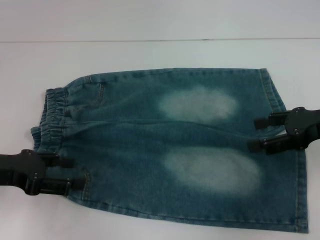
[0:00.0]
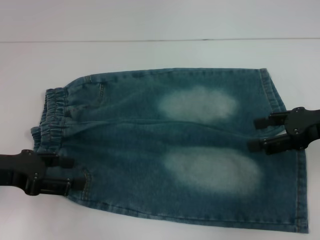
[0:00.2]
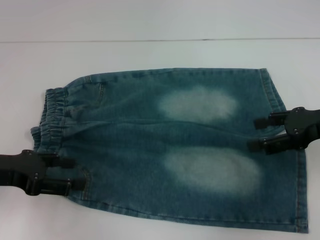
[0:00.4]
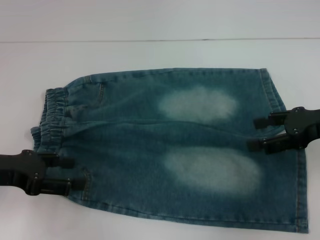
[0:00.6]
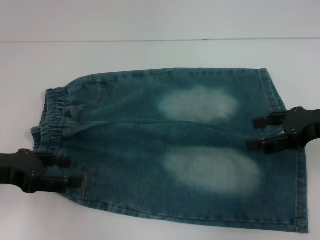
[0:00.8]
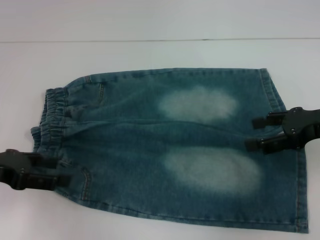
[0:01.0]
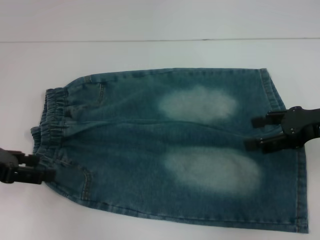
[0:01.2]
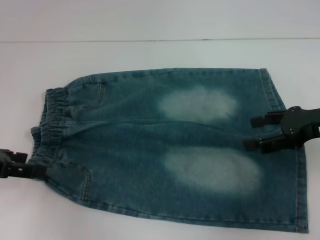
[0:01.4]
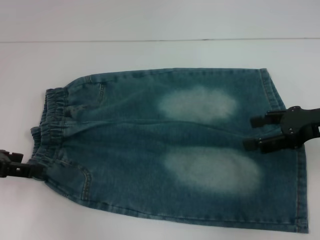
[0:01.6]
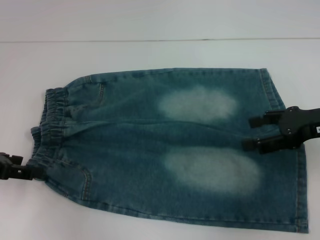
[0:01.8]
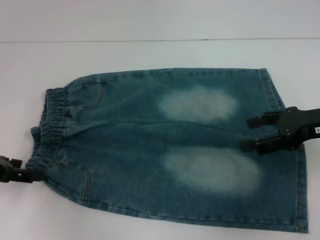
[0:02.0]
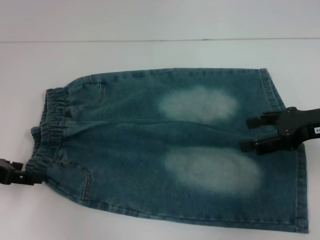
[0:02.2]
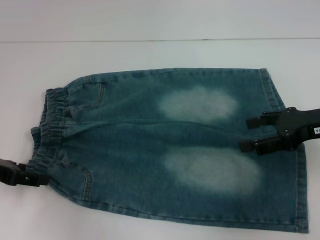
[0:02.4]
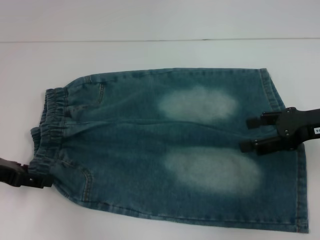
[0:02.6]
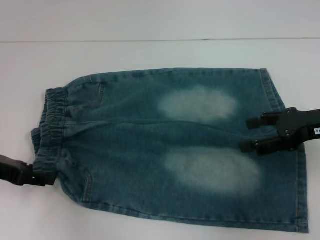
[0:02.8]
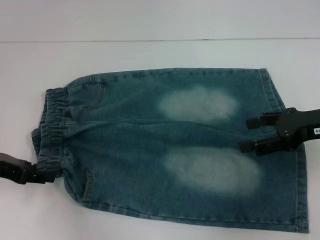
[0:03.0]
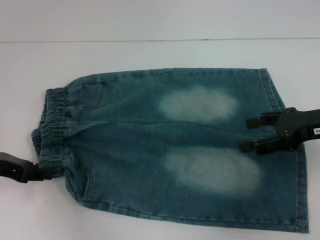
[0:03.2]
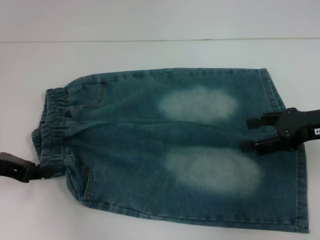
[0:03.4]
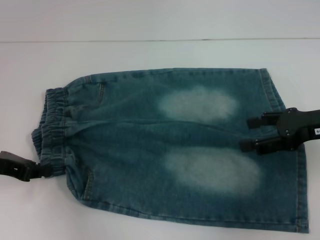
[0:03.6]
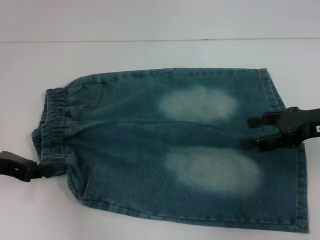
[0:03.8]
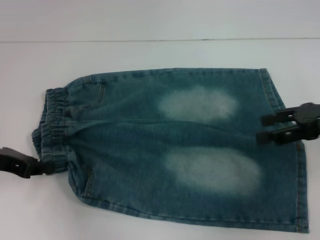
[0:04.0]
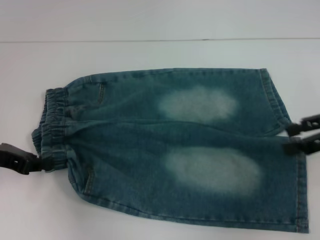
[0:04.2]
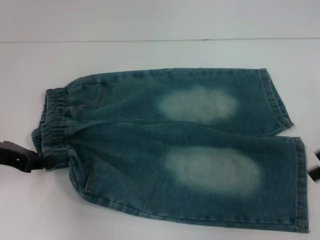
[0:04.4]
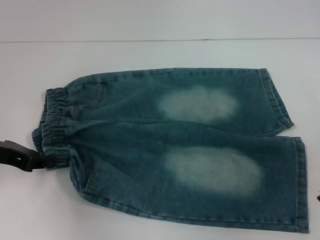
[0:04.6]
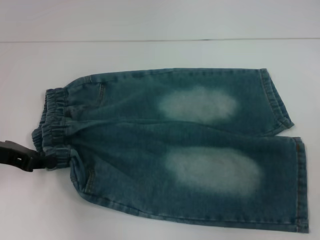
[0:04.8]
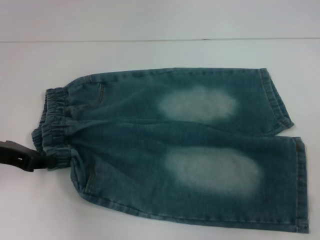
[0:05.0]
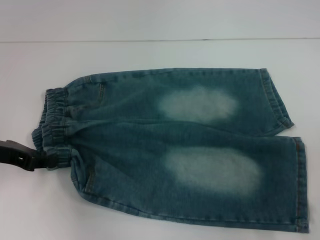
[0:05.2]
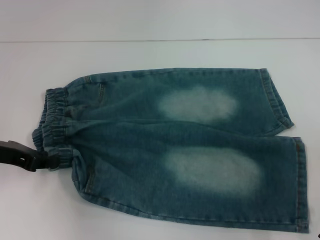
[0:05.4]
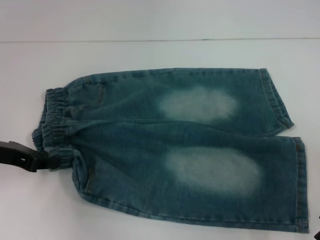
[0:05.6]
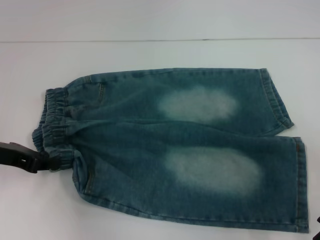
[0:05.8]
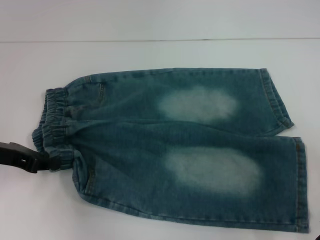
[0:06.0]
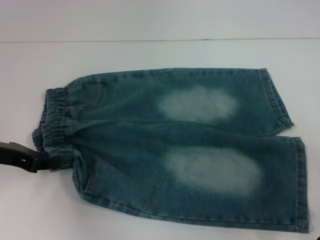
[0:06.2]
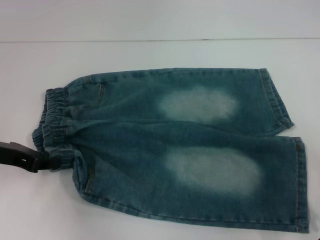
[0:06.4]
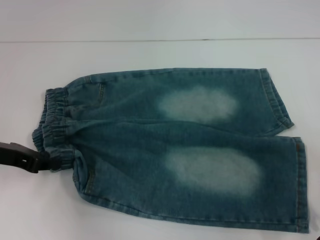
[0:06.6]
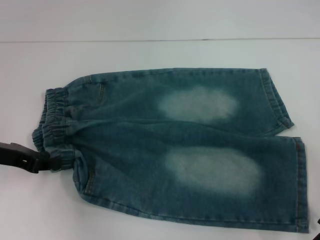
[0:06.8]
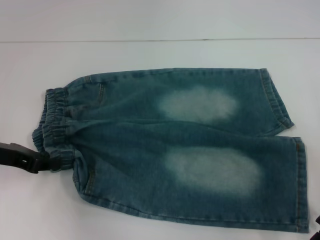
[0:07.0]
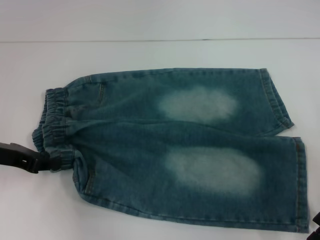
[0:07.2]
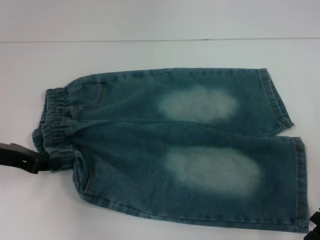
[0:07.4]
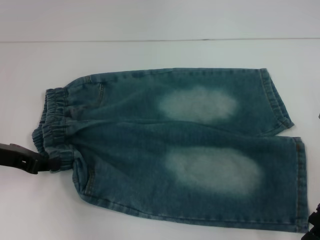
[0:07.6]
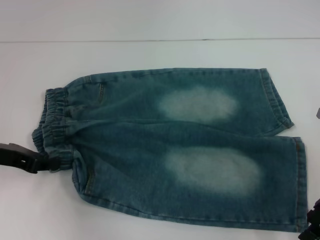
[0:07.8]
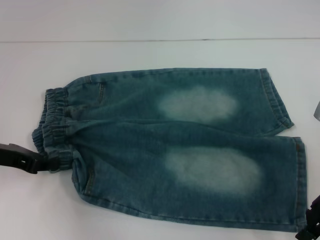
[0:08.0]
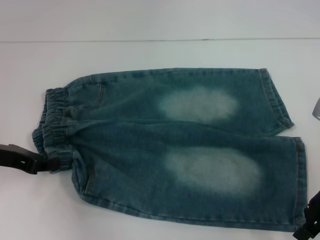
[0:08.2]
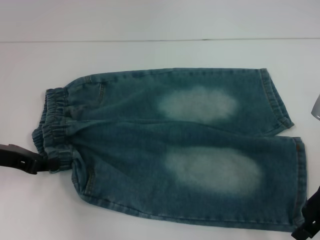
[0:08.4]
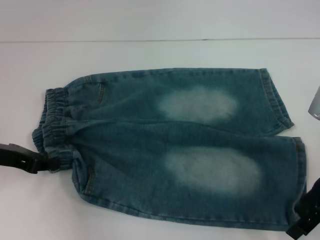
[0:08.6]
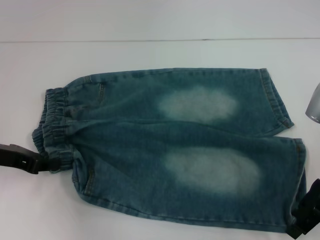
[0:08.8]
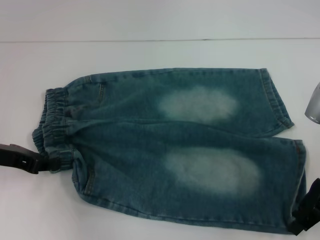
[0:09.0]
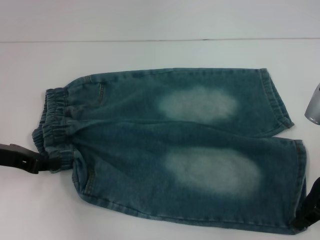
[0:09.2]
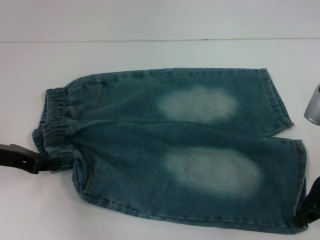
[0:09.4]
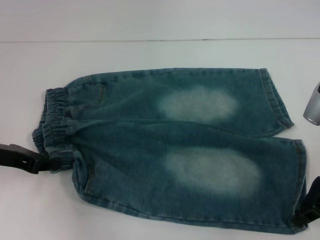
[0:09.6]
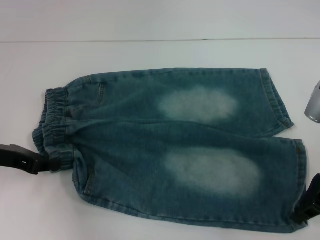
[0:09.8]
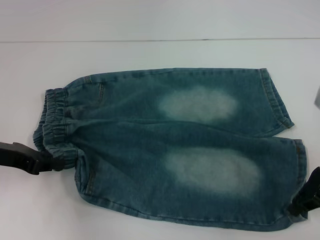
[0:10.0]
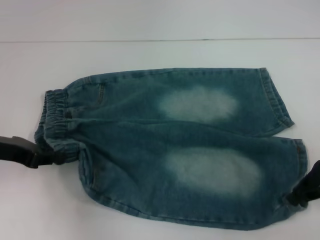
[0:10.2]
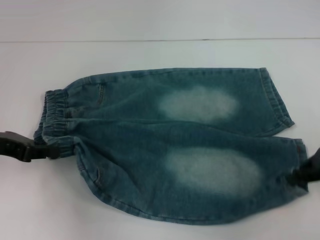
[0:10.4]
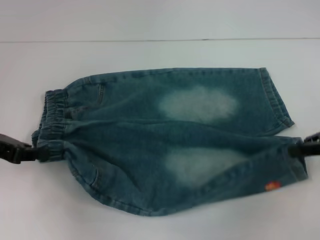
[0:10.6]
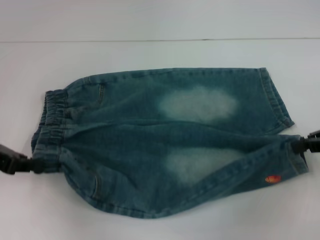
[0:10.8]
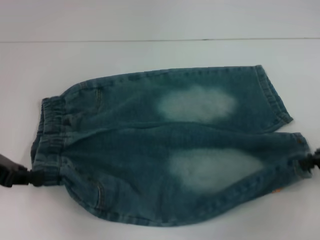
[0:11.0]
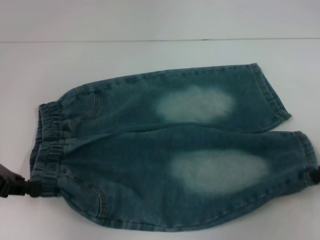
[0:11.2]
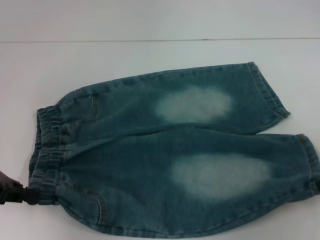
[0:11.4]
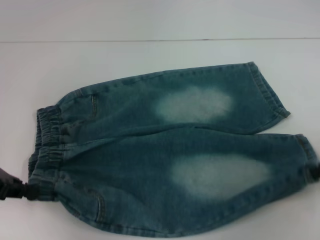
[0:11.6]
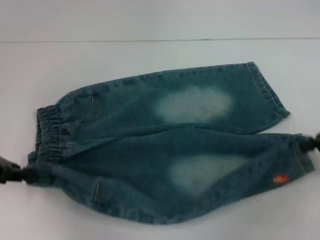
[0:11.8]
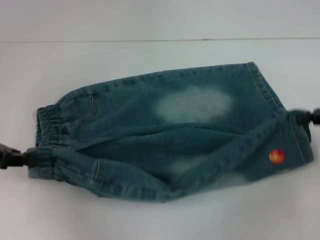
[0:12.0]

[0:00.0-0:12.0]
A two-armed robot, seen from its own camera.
Step, 0:00.0 to 0:03.2: Hold the lower left waistband with your left hand.
Step, 0:03.4 to 0:09.0: Grab the lower right pant leg with your right hand.
0:01.6 to 0:03.0: The grippers move only a little.
0:03.0 to 0:04.4: The left gripper closes up. Meanwhile the right gripper ends up approximately 5 cm from where it was.
0:07.6 to 0:09.0: There are only small adjustments of the grippers.
0:09.0 to 0:10.4: The right gripper ends up about 5 cm from where it was, and closes up.

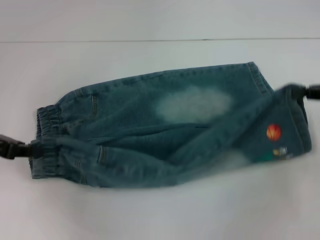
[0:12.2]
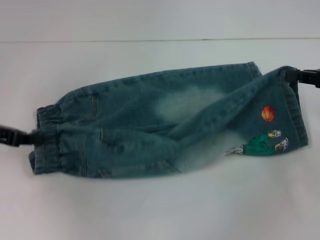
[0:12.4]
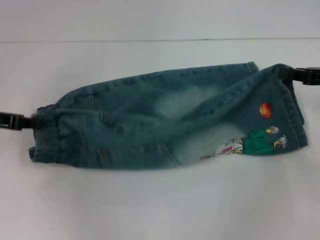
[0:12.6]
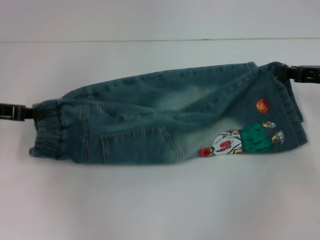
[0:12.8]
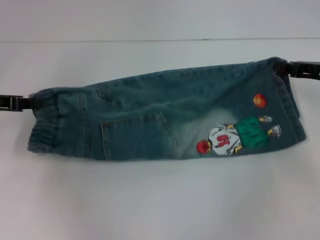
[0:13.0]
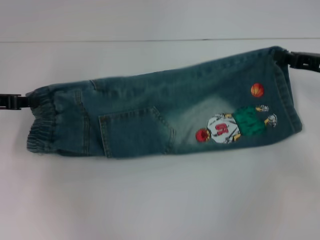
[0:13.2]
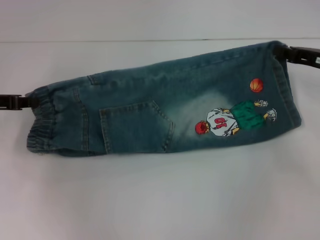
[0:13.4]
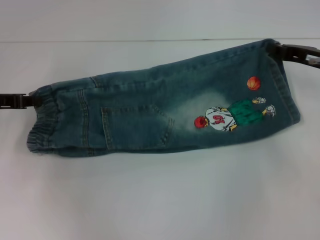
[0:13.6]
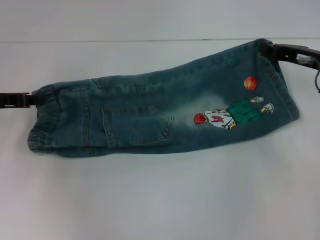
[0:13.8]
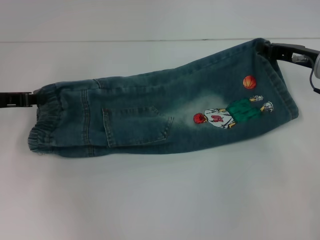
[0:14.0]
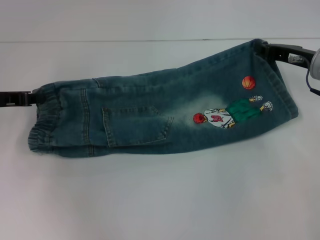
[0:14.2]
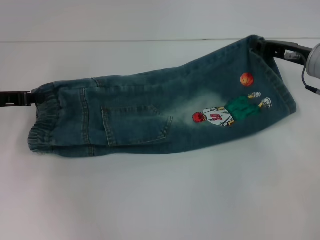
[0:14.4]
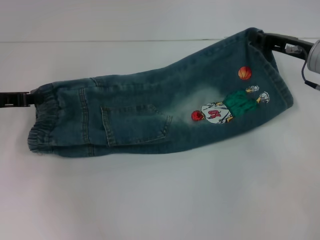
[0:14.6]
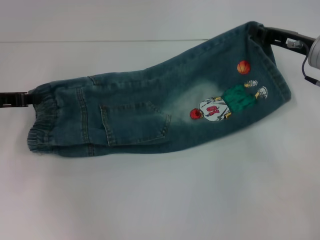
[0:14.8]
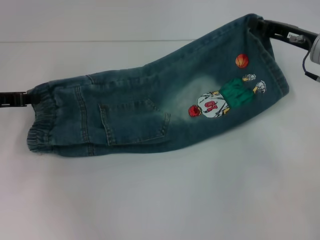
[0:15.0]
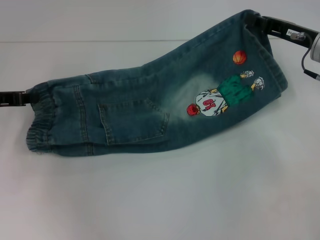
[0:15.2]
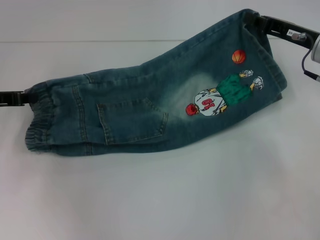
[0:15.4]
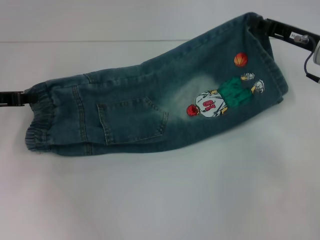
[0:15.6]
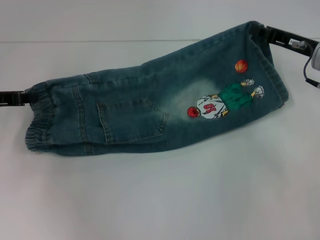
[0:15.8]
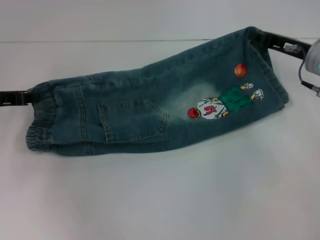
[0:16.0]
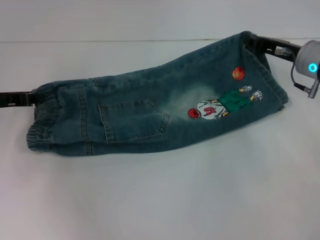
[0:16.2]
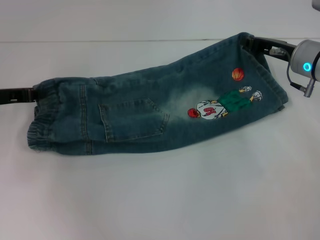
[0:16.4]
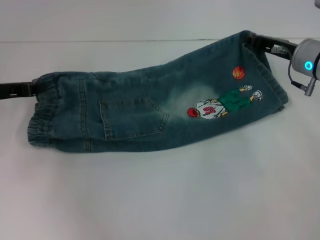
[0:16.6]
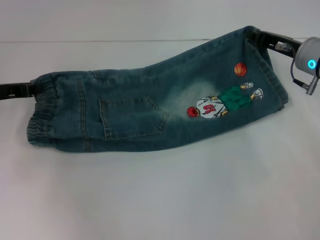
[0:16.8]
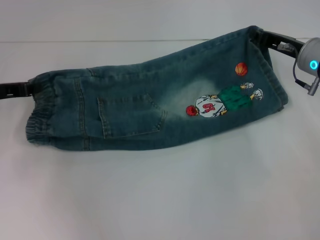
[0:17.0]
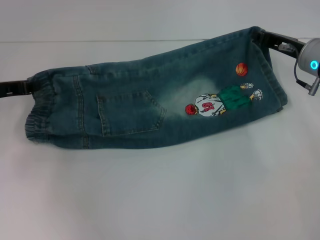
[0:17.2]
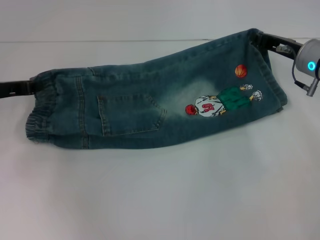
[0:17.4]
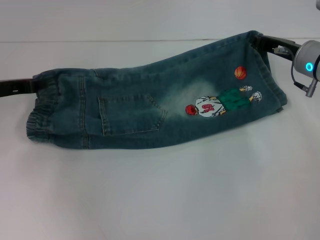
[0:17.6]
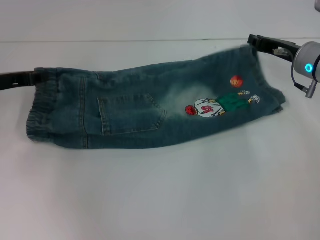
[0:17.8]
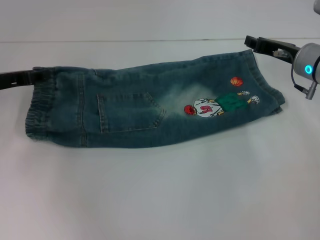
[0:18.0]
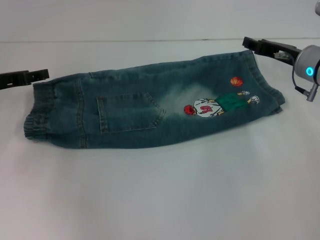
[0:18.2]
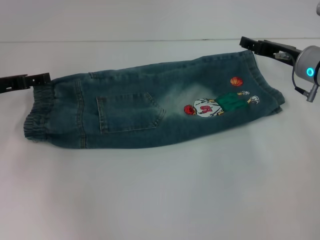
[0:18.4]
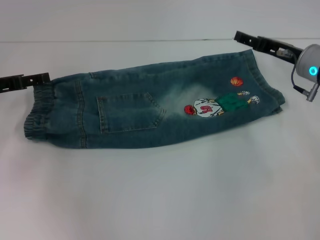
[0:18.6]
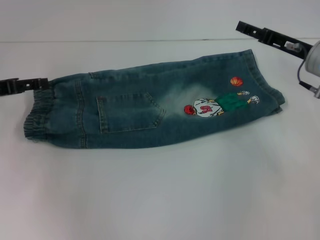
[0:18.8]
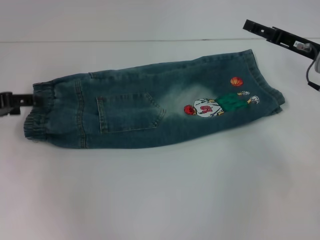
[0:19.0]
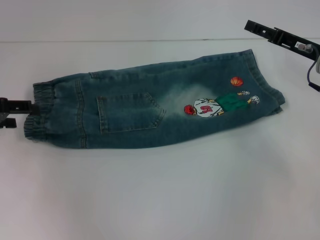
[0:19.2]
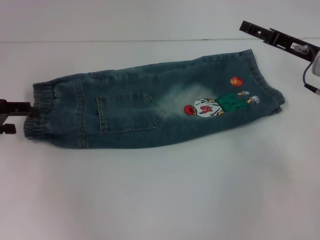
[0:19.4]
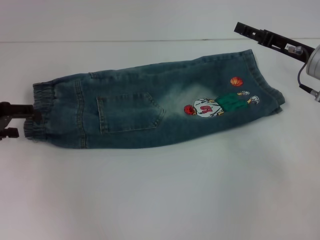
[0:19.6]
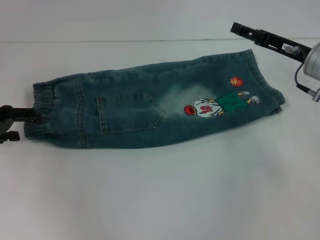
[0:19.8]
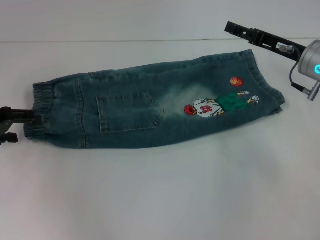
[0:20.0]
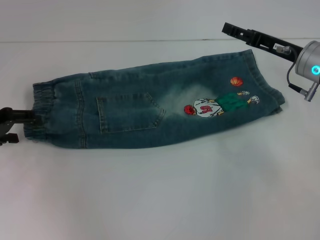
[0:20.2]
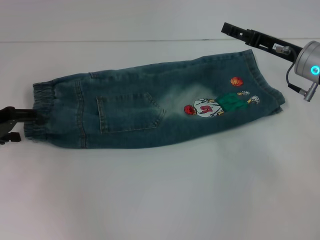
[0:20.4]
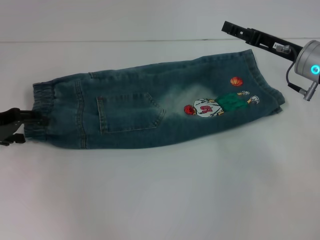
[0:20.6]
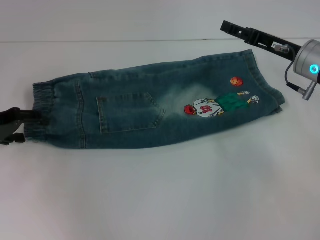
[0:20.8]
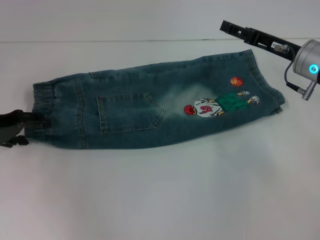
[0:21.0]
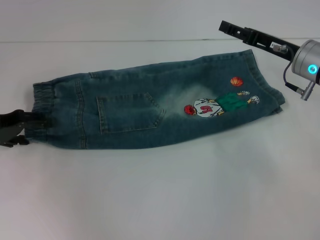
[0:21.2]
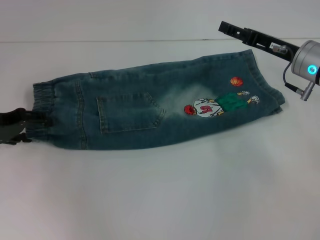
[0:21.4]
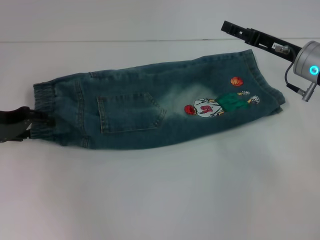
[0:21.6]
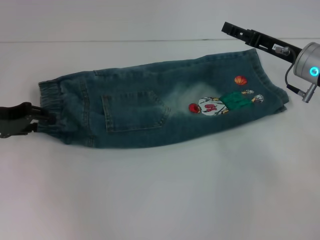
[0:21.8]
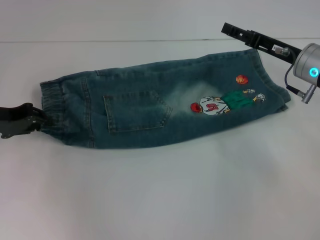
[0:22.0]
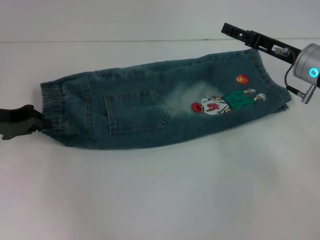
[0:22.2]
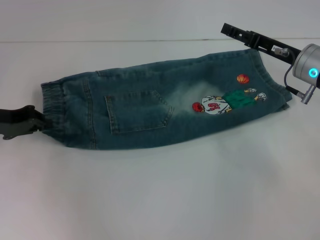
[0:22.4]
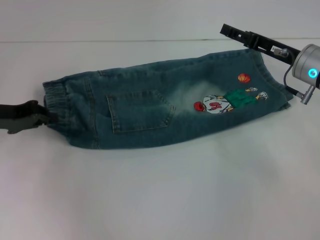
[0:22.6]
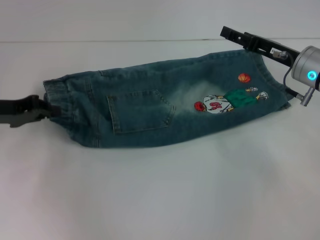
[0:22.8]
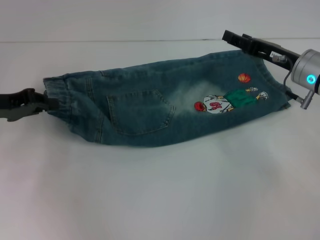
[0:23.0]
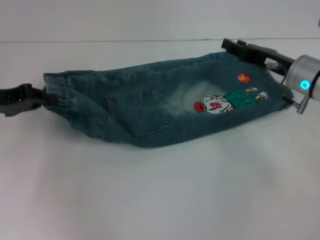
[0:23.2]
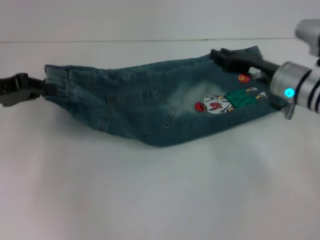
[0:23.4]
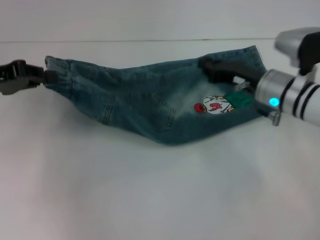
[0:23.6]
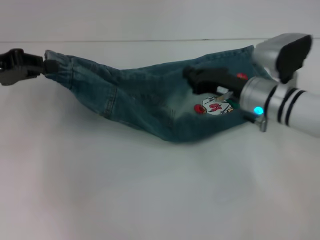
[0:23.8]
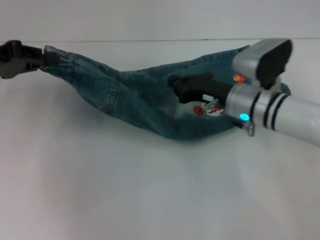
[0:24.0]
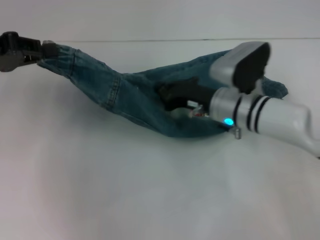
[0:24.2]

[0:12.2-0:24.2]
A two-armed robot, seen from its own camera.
Step, 0:12.2 to 0:18.8: Fold upward with your right hand.
Step, 0:19.0 to 0:21.8: Hold the lower left waistband with your left hand.
0:12.2 to 0:13.8: The right gripper is displaced to the left and forward by roughly 10 cm.
0:13.8 to 0:16.6: The grippers move only a little.
0:16.6 to 0:18.2: The left gripper opens its fingers.
0:18.2 to 0:19.8: The right gripper opens its fingers, while the left gripper opens.
0:19.8 to 0:21.2: The grippers stay close to where they were, moving slightly.
0:21.2 to 0:22.6: The left gripper closes up.
0:22.6 to 0:24.2: The right gripper moves to the left, roughly 10 cm, and closes up. Meanwhile the left gripper moves upward, about 10 cm.
